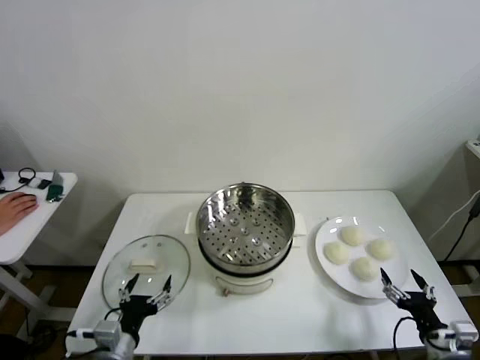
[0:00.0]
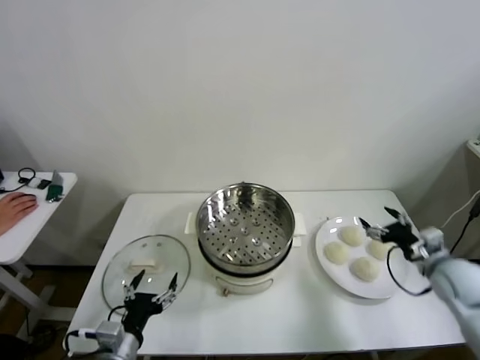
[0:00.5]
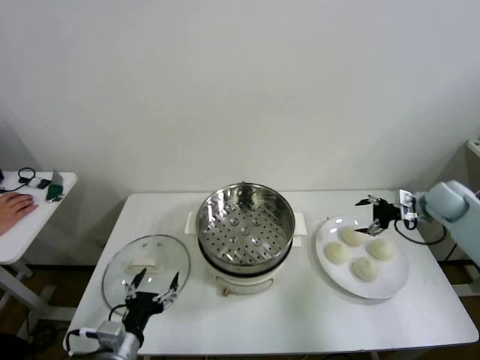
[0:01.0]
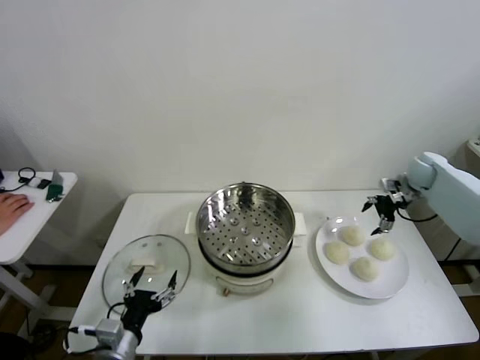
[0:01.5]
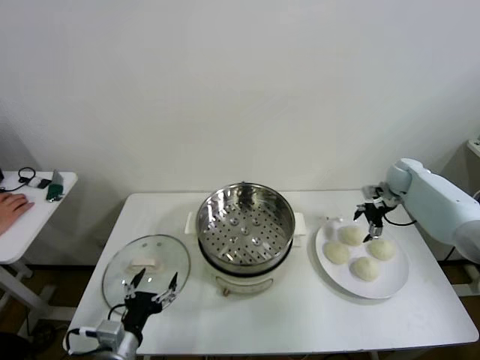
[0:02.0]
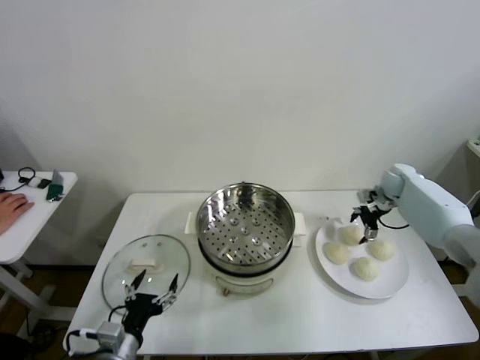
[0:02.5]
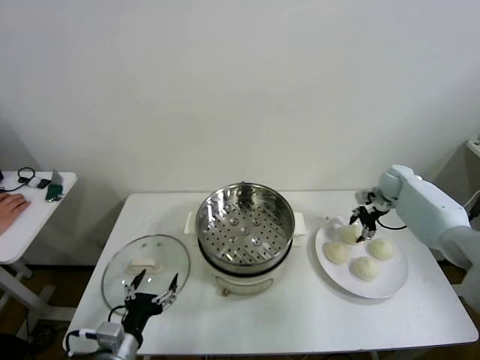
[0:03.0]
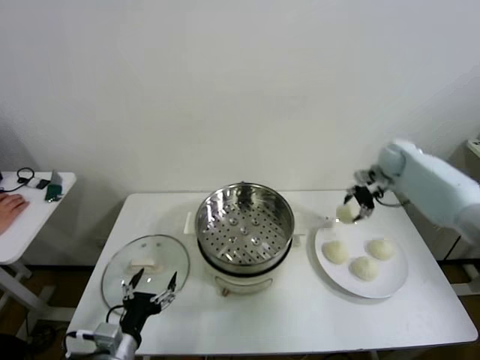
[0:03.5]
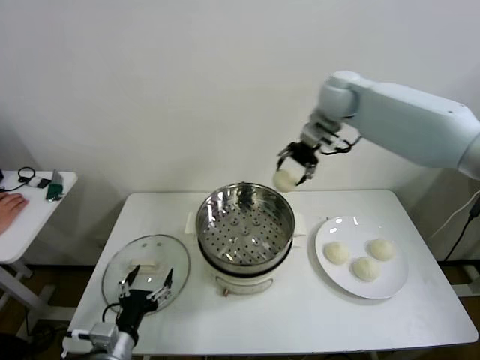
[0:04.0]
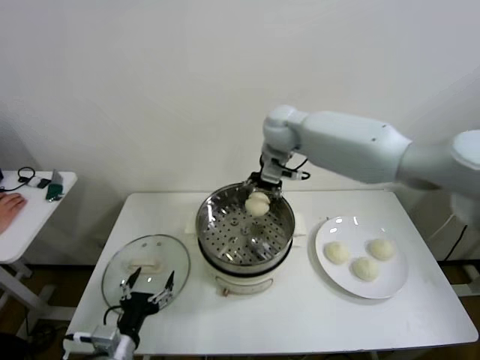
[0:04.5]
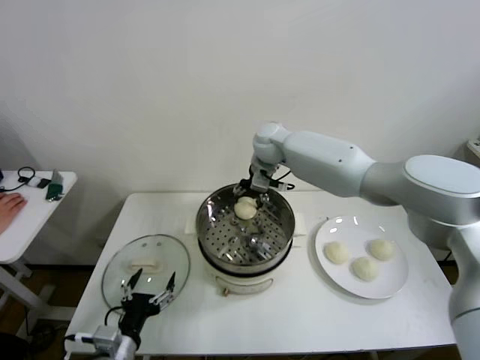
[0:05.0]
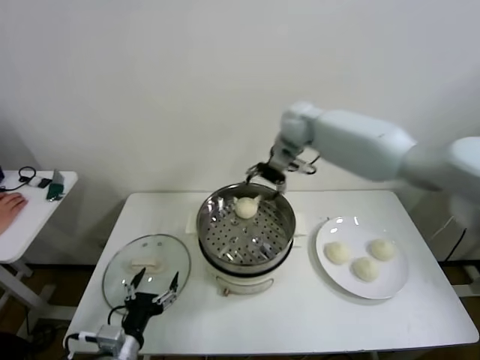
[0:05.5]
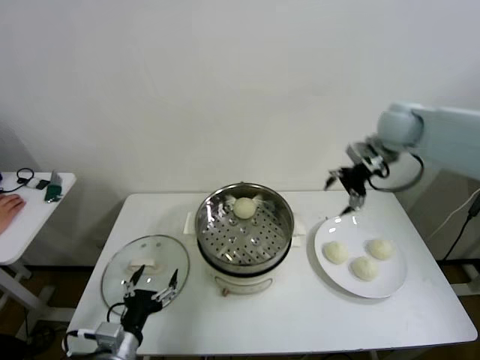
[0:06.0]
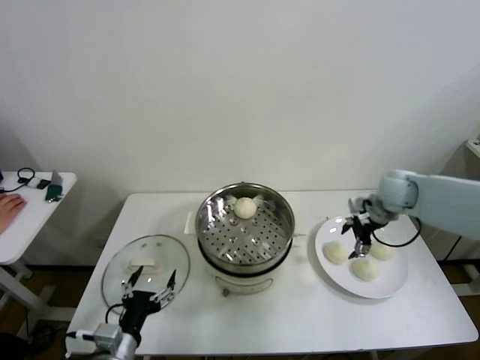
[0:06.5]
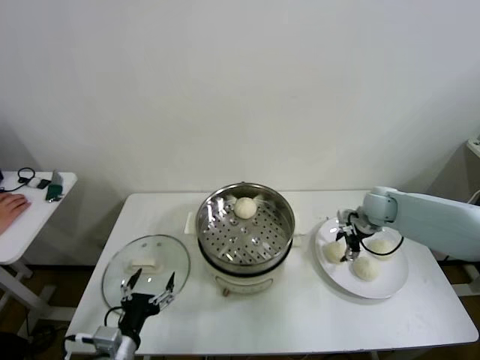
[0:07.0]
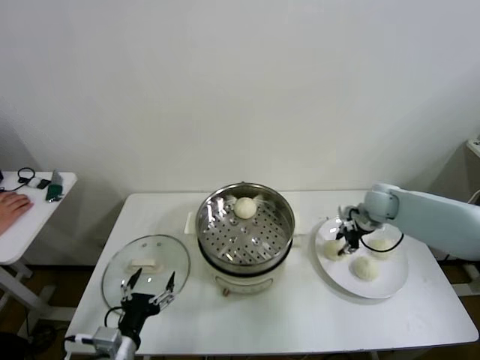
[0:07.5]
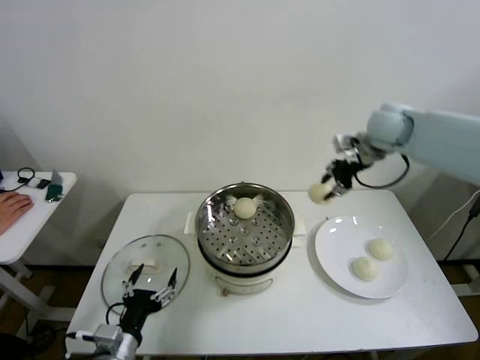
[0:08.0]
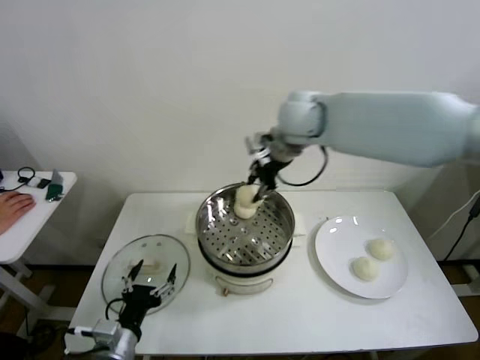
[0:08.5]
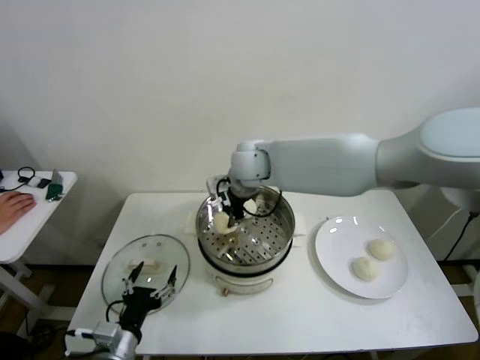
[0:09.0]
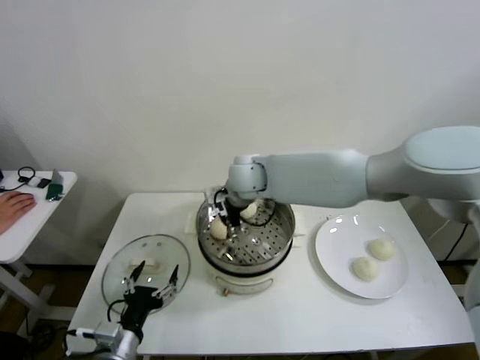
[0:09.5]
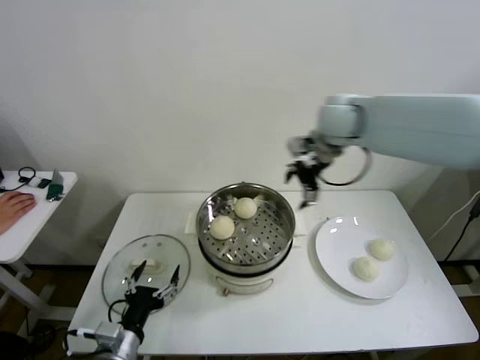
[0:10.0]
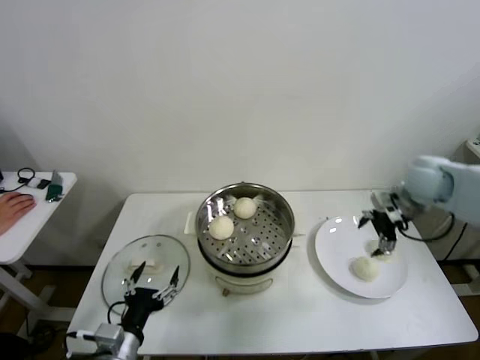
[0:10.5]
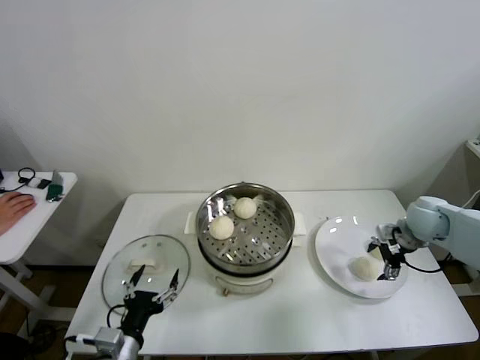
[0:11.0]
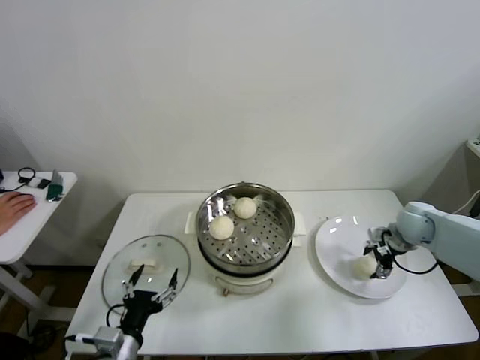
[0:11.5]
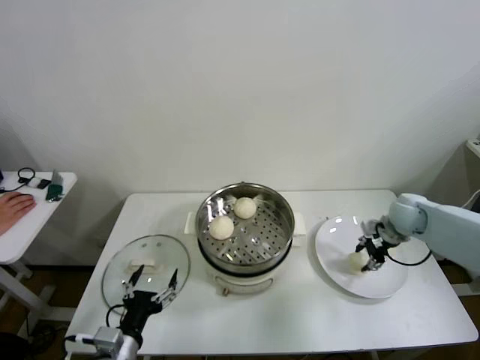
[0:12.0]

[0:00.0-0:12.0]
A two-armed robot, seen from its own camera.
Step, 0:00.0 to 0:02.5: Grasp the baozi in the plate with right gripper.
Step, 0:03.0 to 0:05.0: Place the baozi on the steamer with right gripper.
Step, 0:05.5 to 0:07.0: Grasp the baozi in the plate with right gripper.
Step, 0:07.5 to 0:09.0: Place the baozi on the steamer with right gripper.
Step, 0:10.0 to 0:11.5: Grasp the baozi in the plate with right gripper.
0:02.0 to 0:04.0: The right gripper travels to the left and upward by roughly 35 cm, and closes up.
0:04.0 to 0:06.0: The right gripper is displaced to the right by about 20 cm, and opens its fingers.
0:06.0 to 0:08.0: The right gripper shifts about 10 cm to the left, moves approximately 20 cm downward and comes back, and closes.
0:08.0 to 0:10.0: The right gripper reaches roughly 25 cm to the left, then returns, and opens its fingers.
0:10.0 to 0:12.0: The right gripper goes roughly 30 cm downward and to the right, and closes up.

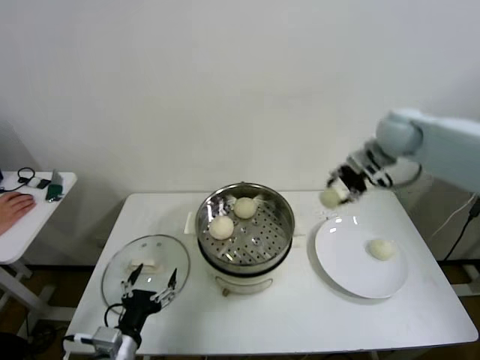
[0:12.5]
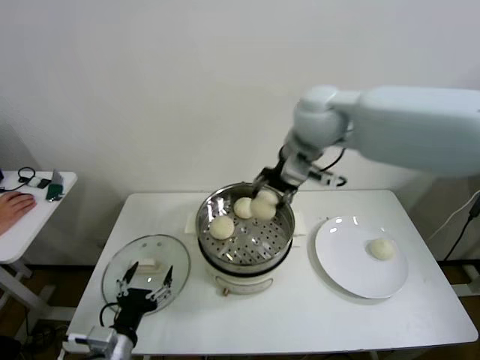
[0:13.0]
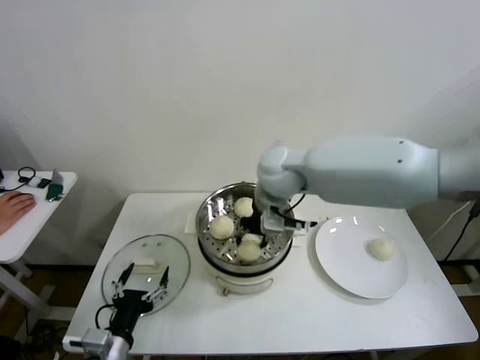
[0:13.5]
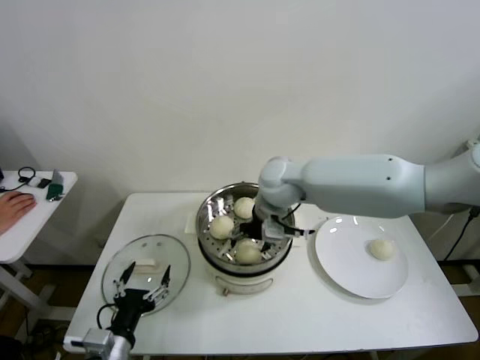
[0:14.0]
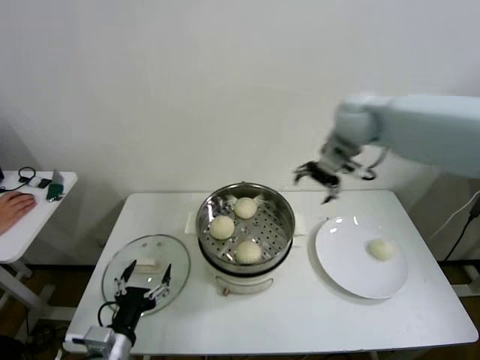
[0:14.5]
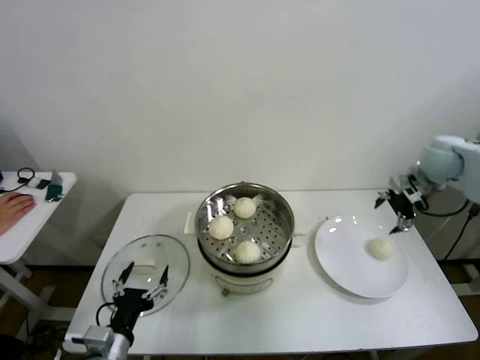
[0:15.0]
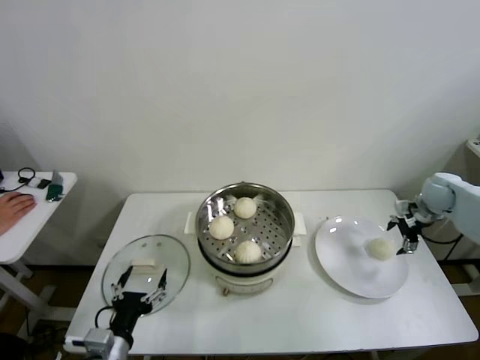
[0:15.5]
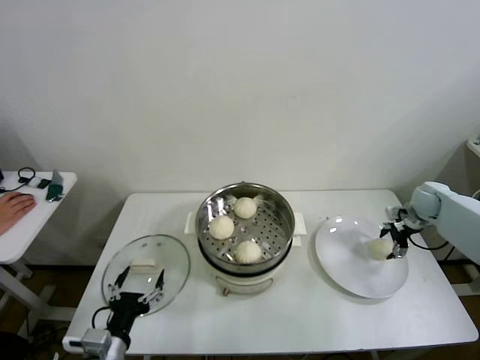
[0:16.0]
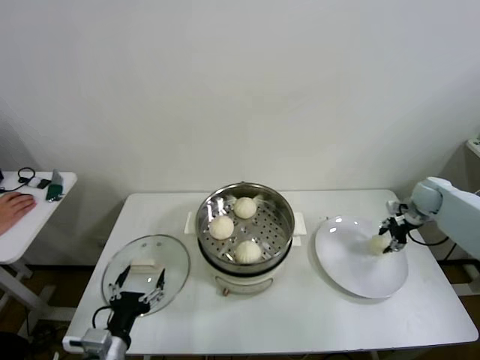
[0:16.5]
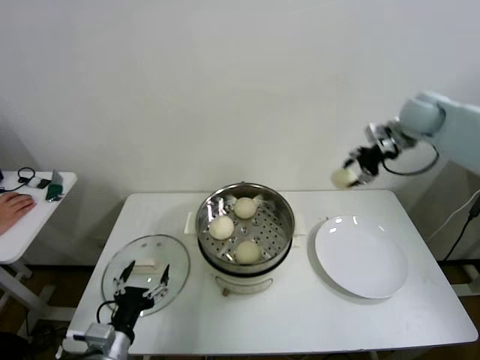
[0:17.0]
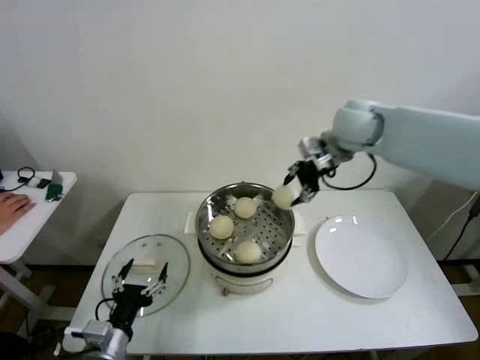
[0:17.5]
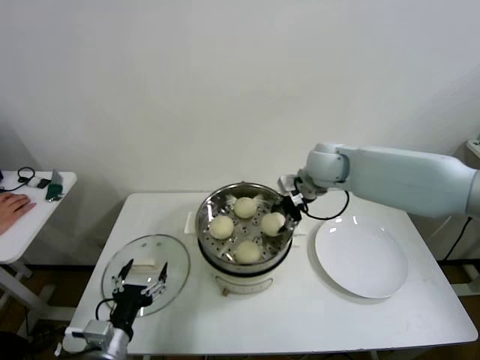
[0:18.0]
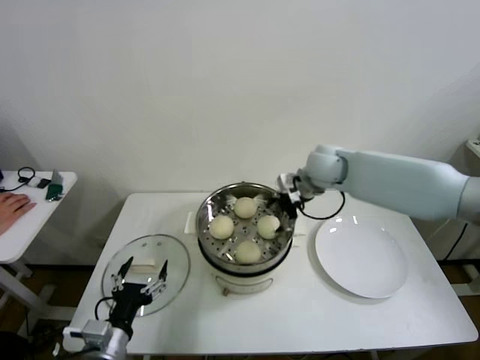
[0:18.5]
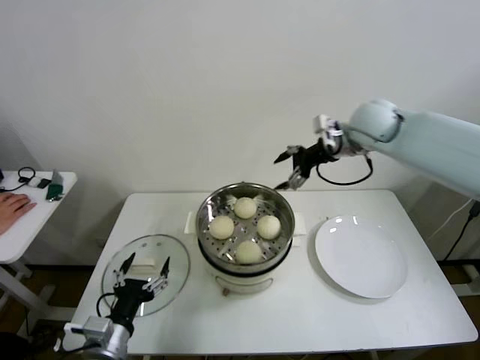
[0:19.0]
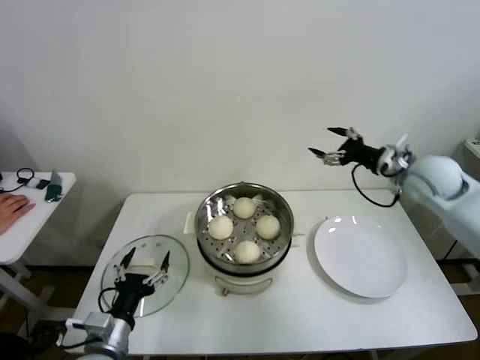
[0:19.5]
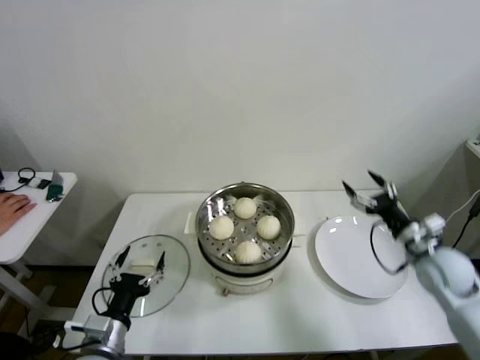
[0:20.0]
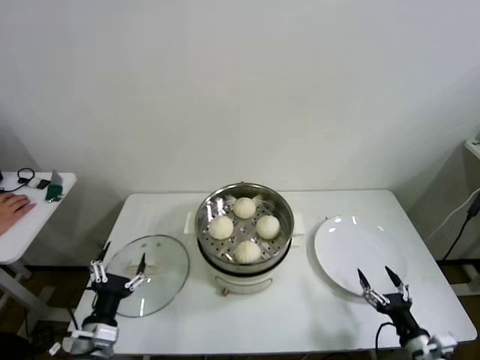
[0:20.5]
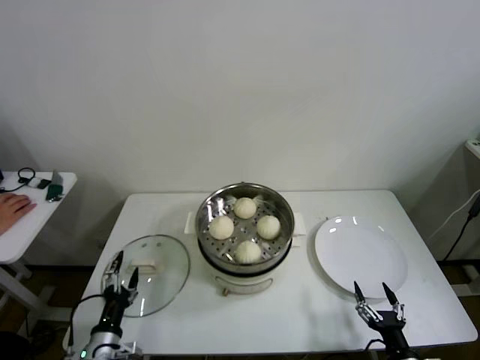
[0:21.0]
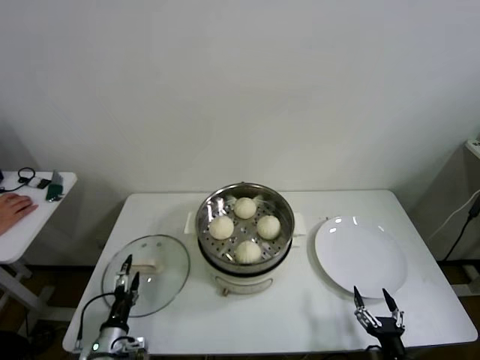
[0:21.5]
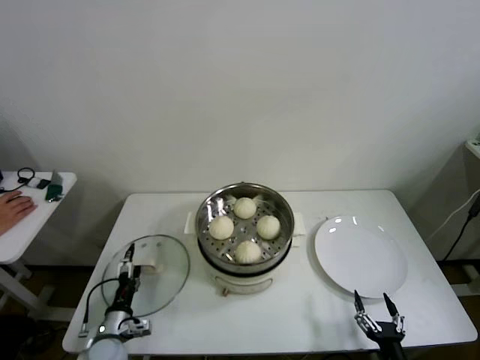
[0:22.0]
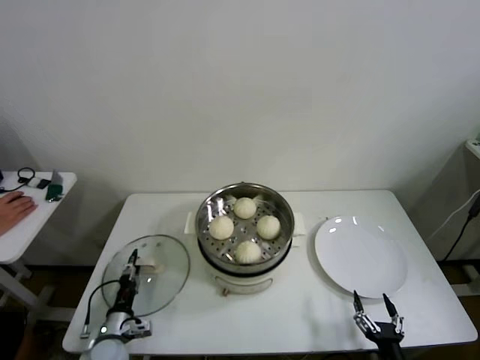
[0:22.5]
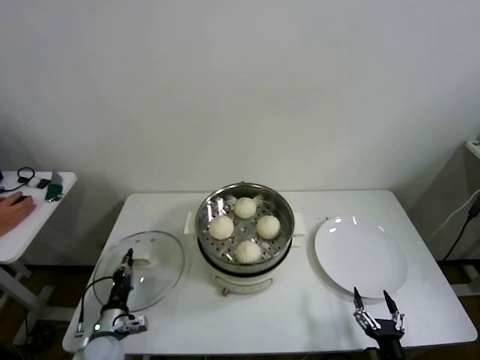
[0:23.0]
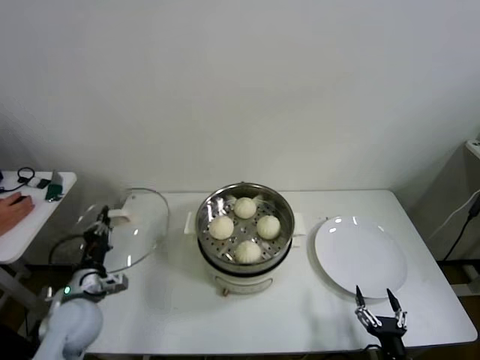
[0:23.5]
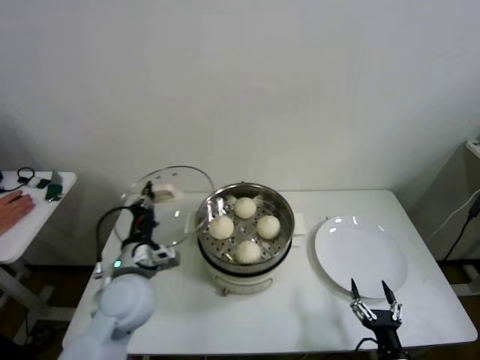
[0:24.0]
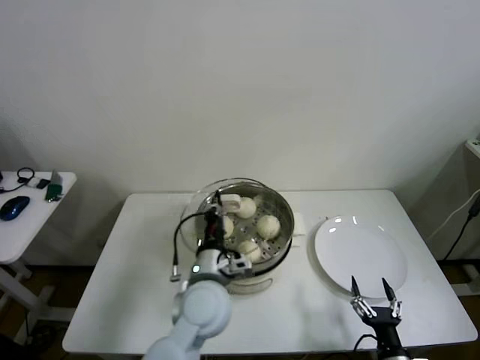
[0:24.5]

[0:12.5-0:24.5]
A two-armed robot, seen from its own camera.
Step, 0:12.5 to 0:13.5: Place the baozi on the steamer with right gripper.
Step, 0:14.0 to 0:16.0: Grasp the baozi in the plate with right gripper.
Step, 0:16.5 to 0:18.0: Place the baozi on the steamer with right gripper.
Step, 0:18.5 to 0:22.5: Grasp the pot lid with left gripper.
0:12.5 to 0:14.5: The right gripper moves approximately 25 cm to the left and comes back, and opens its fingers.
0:14.5 to 0:16.5: The right gripper moves to the right and downward, about 35 cm, and closes up.
0:16.5 to 0:18.5: The right gripper travels to the left by roughly 30 cm, and opens.
0:18.5 to 0:20.5: The right gripper travels backward, downward and to the right by approximately 50 cm.
0:20.5 to 0:22.5: The right gripper is displaced to the left and backward by roughly 10 cm. The left gripper moves downward and forward, some 15 cm, and closes up.
0:22.5 to 0:24.5: The left gripper travels to the right and upward by roughly 35 cm, and closes its fingers.

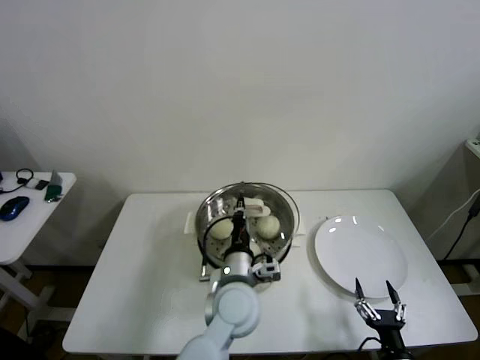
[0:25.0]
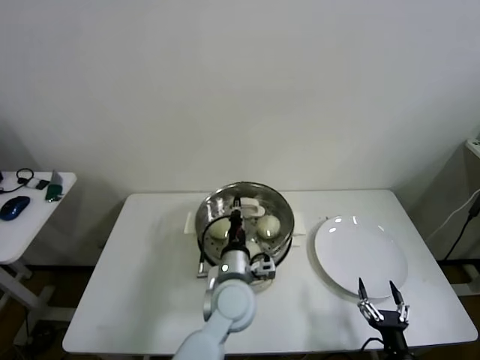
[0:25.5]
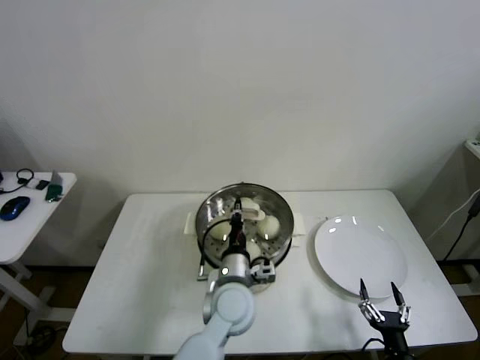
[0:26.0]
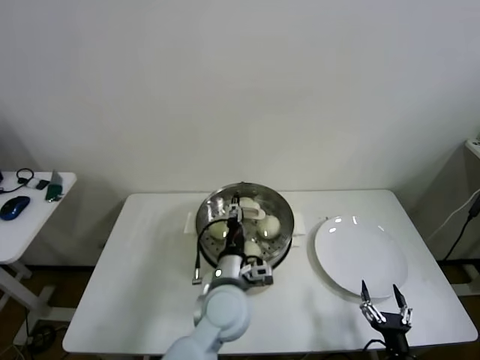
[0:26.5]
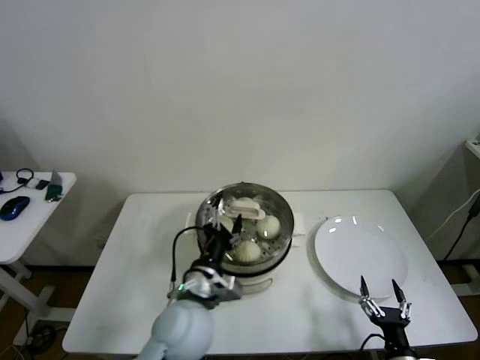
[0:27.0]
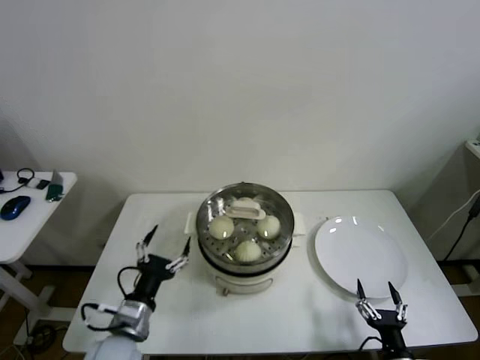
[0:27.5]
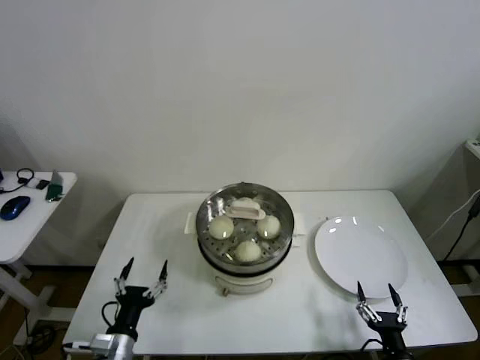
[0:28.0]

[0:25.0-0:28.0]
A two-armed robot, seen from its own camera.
0:25.0 to 0:26.5: The left gripper opens up.
0:26.5 to 0:28.0: The left gripper is displaced to the left, backward and downward by about 30 cm, and opens its fingers.
